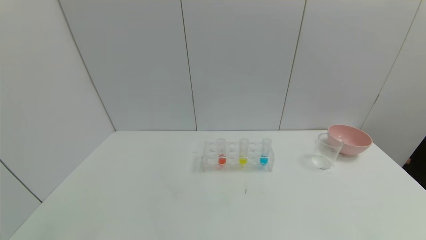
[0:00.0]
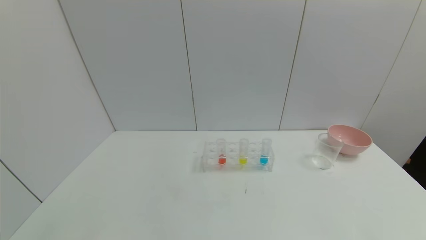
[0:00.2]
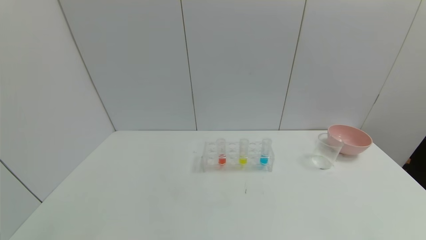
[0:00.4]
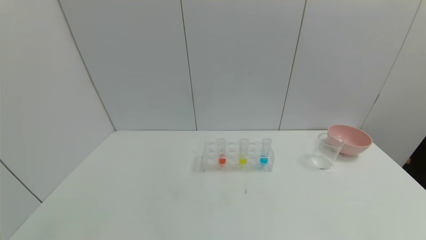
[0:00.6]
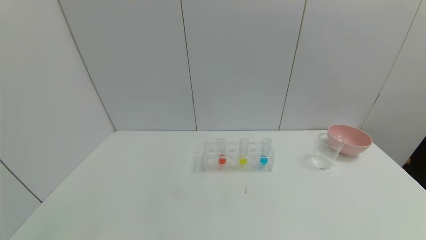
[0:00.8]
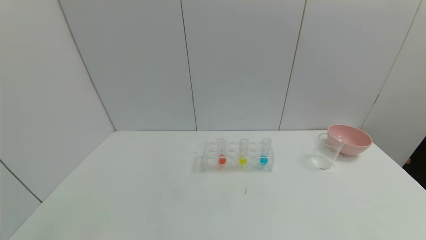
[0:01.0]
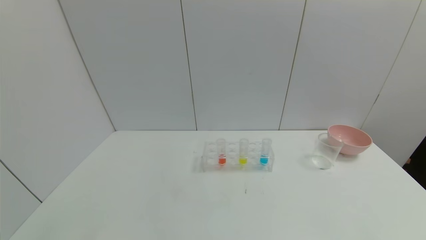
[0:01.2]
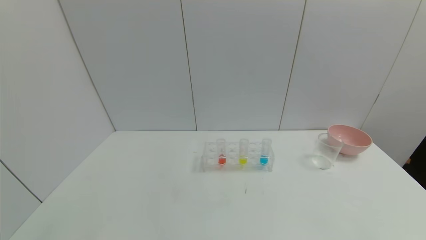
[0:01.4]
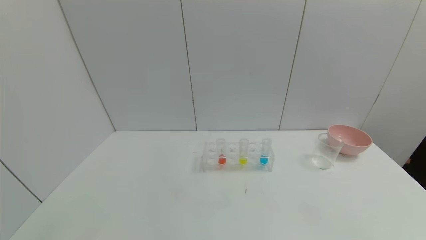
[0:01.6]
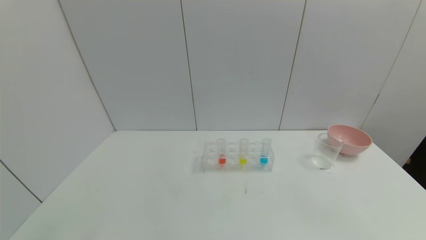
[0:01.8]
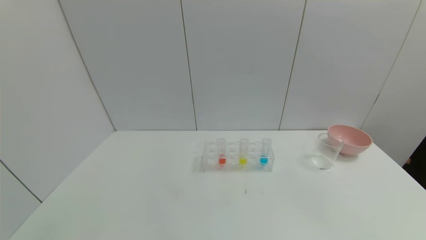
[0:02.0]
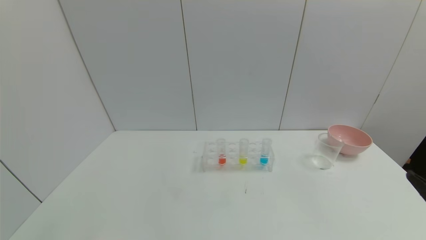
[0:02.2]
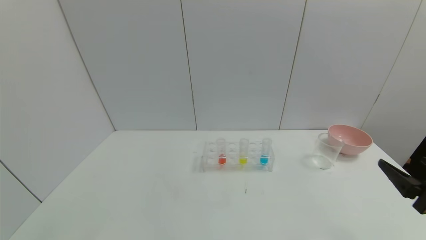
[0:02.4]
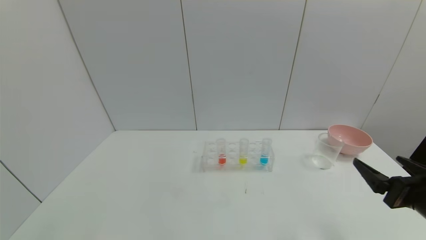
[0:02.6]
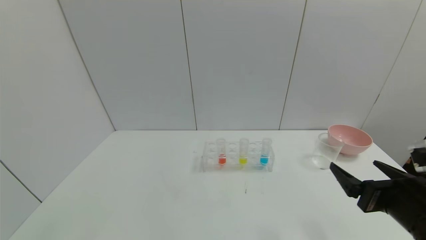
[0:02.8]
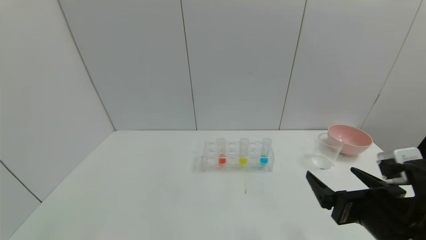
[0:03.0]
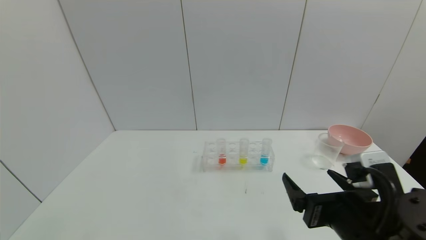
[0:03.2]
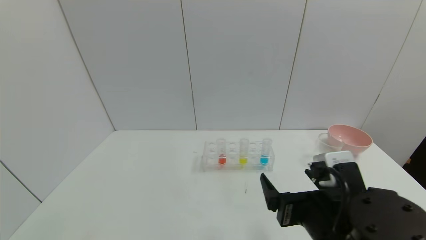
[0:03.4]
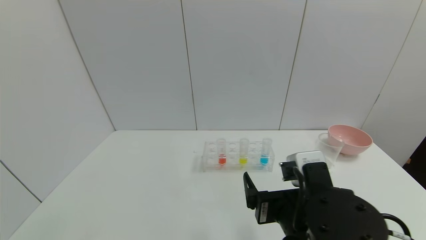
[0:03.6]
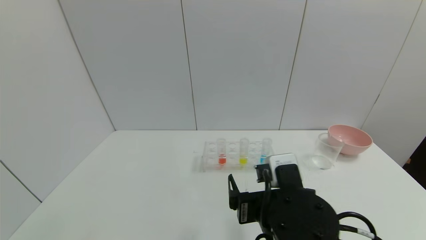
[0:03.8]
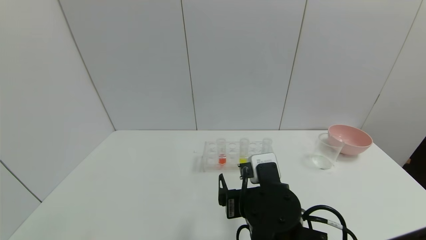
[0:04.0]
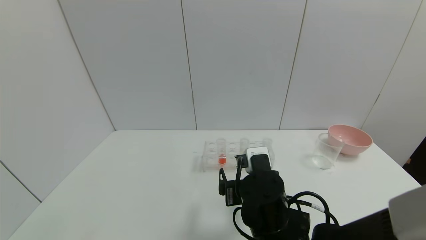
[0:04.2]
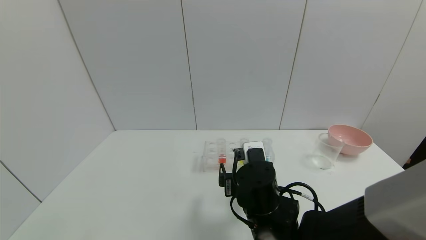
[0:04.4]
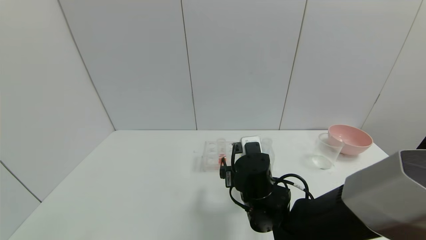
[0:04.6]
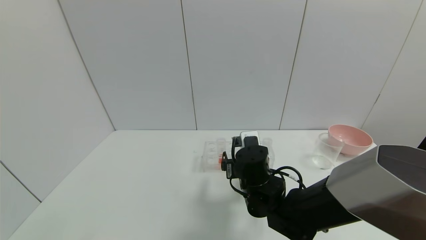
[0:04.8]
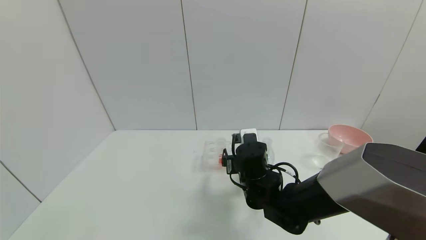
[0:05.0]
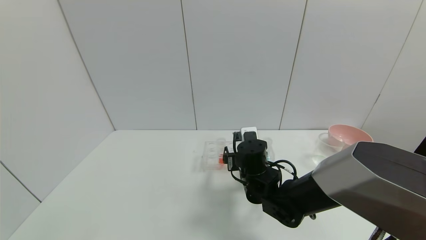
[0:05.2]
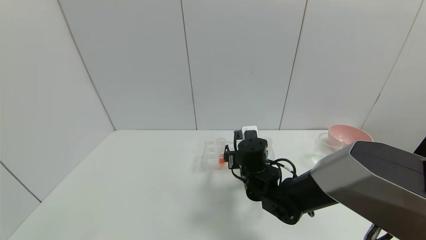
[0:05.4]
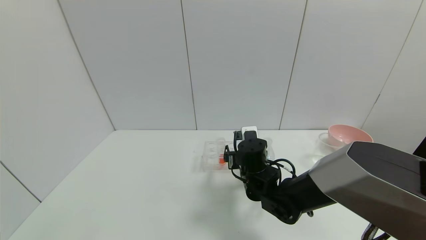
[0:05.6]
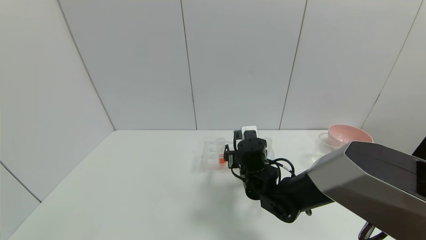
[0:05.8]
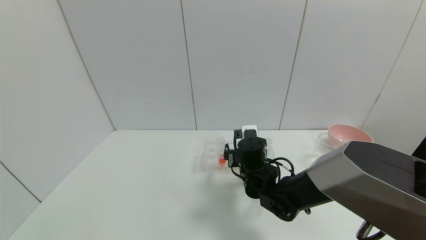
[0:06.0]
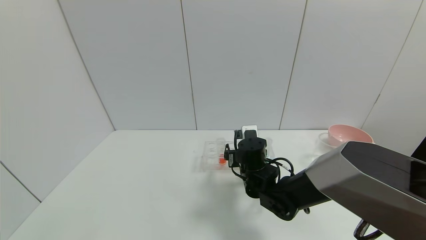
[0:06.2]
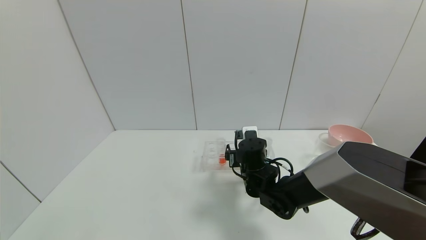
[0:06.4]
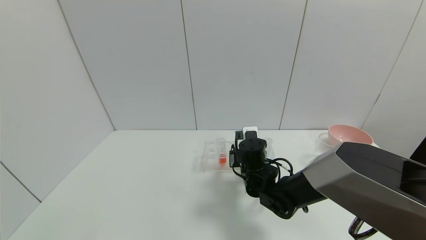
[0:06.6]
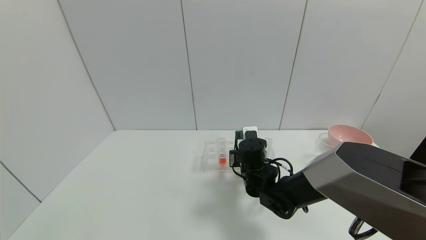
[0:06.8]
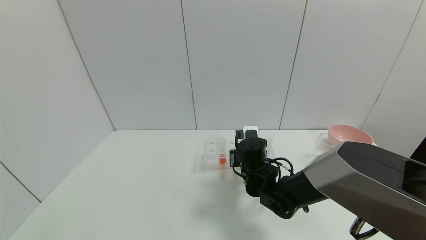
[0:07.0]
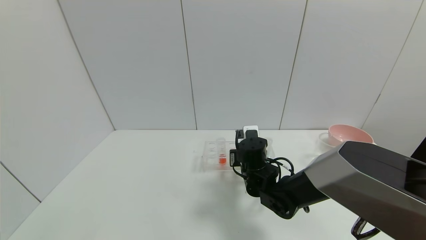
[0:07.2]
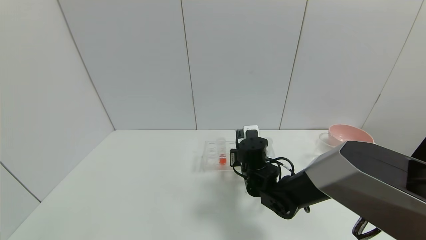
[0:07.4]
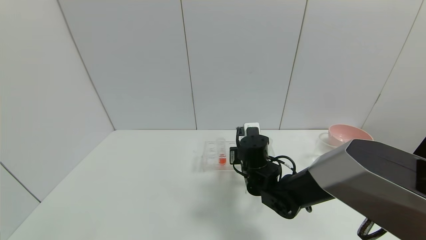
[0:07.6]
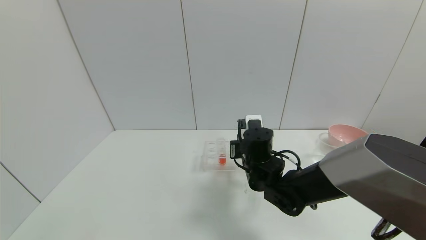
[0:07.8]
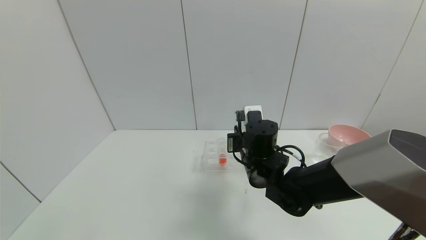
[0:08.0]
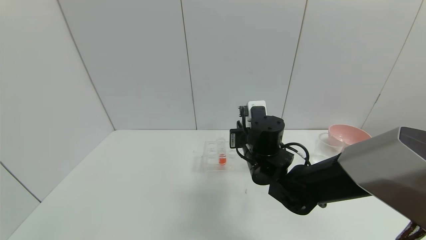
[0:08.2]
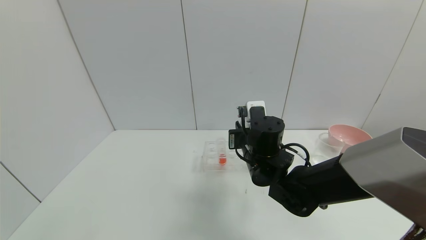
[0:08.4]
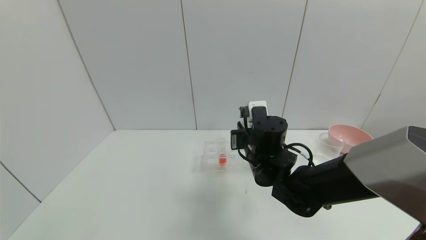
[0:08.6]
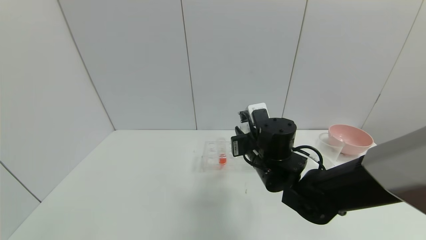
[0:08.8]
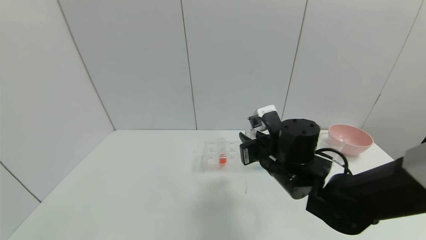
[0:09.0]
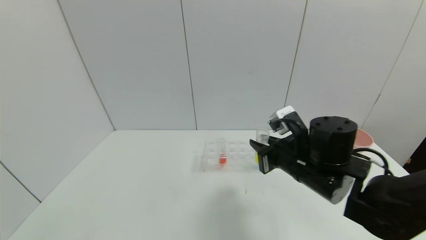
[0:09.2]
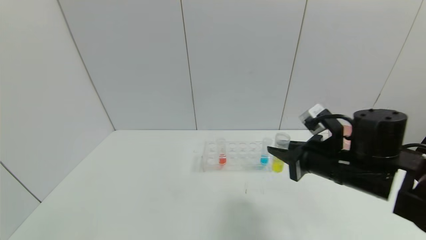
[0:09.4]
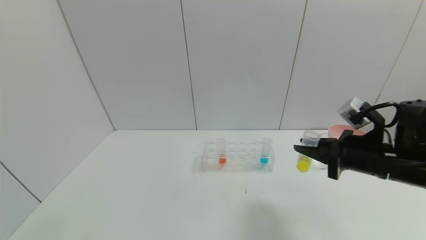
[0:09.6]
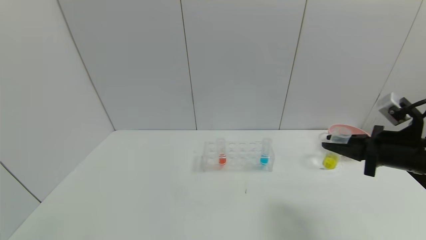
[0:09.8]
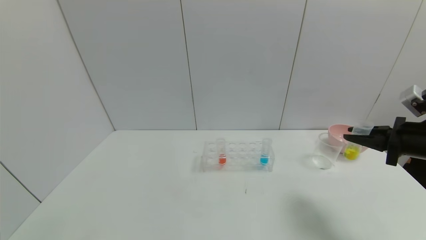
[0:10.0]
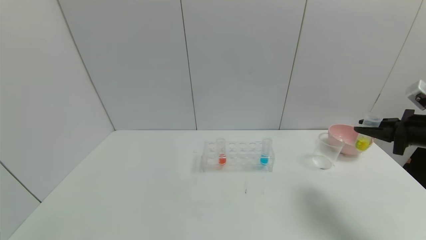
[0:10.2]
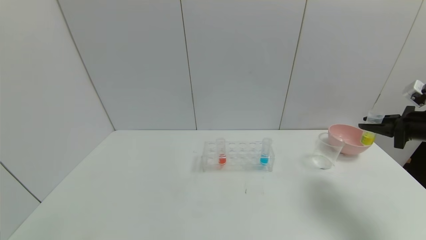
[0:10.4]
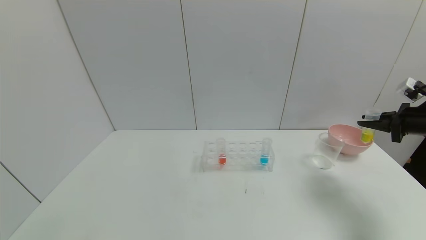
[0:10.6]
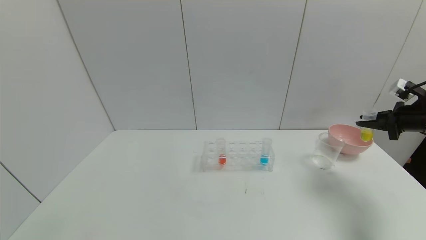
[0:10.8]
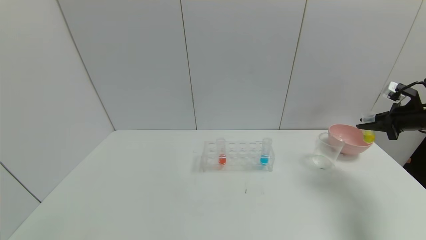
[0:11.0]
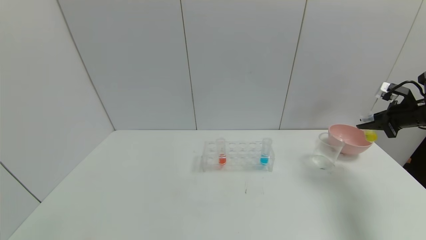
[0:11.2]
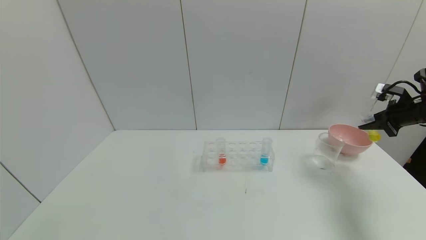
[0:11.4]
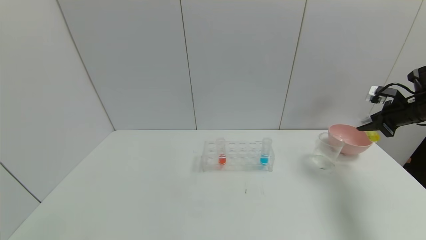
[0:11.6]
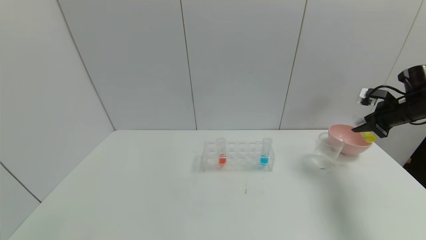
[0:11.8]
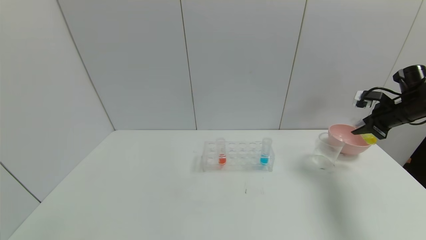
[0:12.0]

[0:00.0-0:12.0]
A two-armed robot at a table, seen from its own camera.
Task of the whole recording: pick up the test tube with yellow pigment and the test tube with blue pigment by grippers and pour them into the beaker.
Step, 0:00.0 to 0:07.0: Grasp the yellow reagent with the right gripper.
0:01.6 to 0:03.0: The right gripper travels forward and to the left by about 20 cm.
0:03.0 to 0:04.4: The right gripper goes roughly 20 cm to the left and forward.
0:04.4 to 0:06.0: The right gripper heads forward, covering about 10 cm.
0:06.0 to 0:07.6: The right gripper closes up.
0:07.6 to 0:09.0: The right gripper is displaced upward and backward by about 10 cm.
0:09.0 to 0:10.4: The right gripper shifts some 35 cm to the right.
0:10.4 to 0:12.0: The right gripper shifts about 10 cm forward.

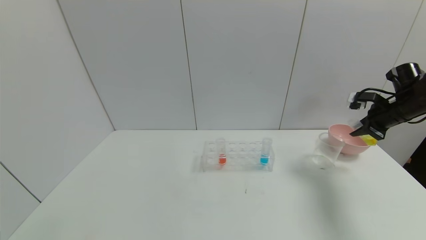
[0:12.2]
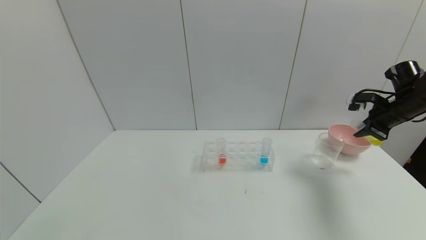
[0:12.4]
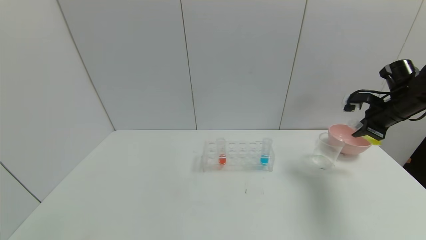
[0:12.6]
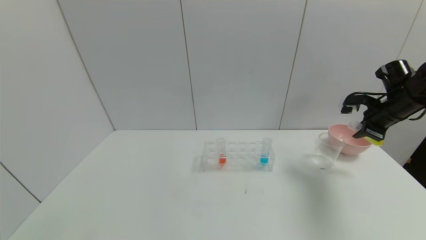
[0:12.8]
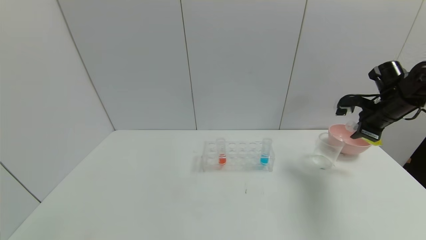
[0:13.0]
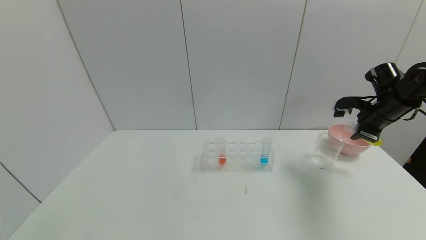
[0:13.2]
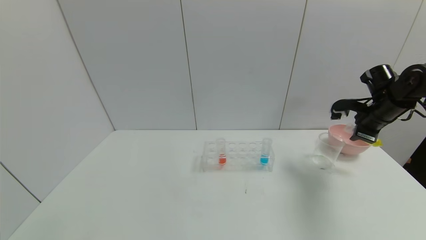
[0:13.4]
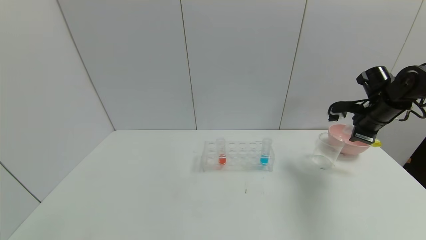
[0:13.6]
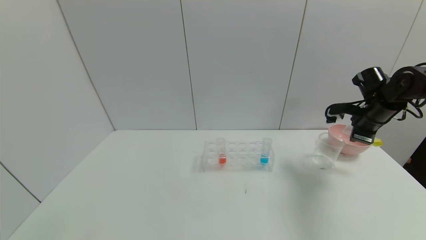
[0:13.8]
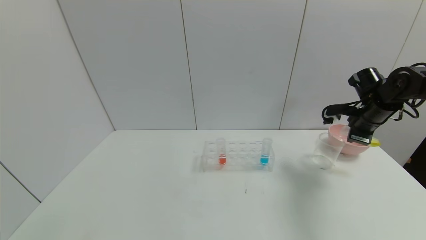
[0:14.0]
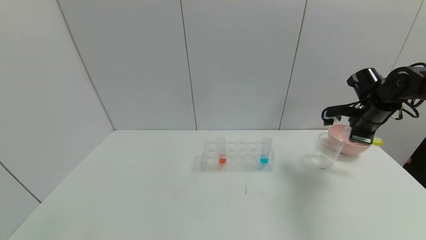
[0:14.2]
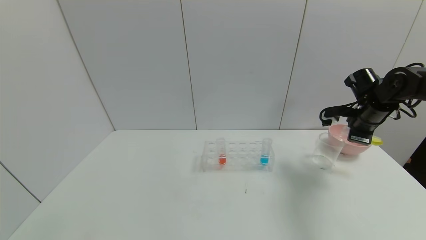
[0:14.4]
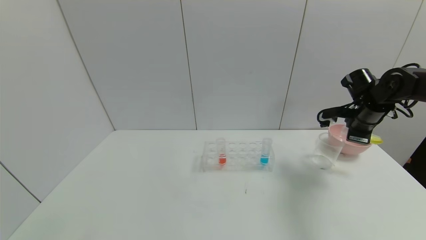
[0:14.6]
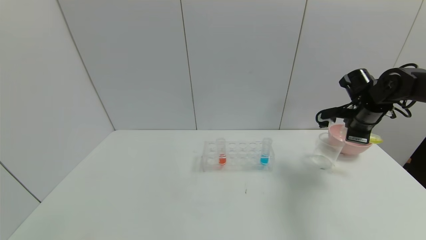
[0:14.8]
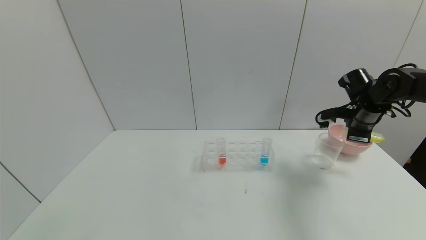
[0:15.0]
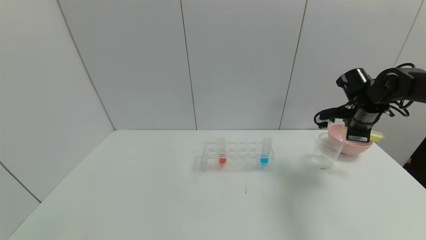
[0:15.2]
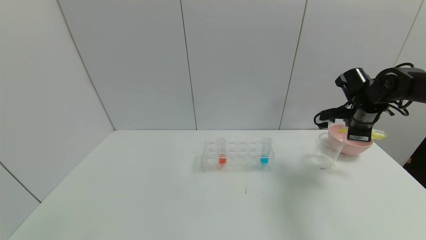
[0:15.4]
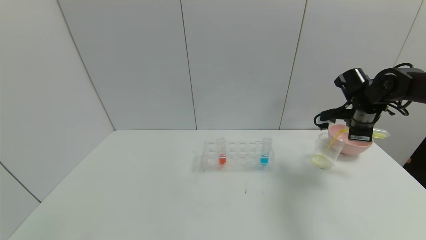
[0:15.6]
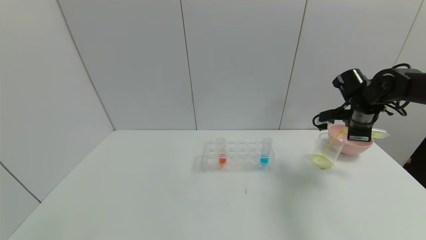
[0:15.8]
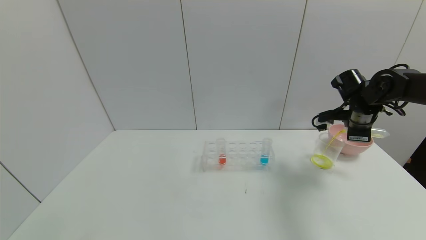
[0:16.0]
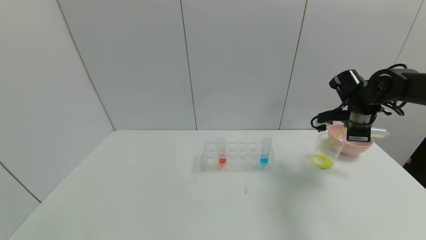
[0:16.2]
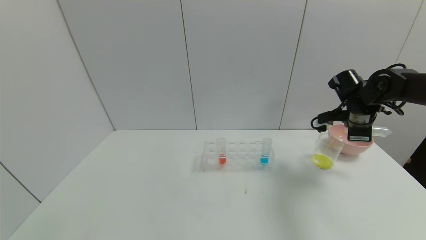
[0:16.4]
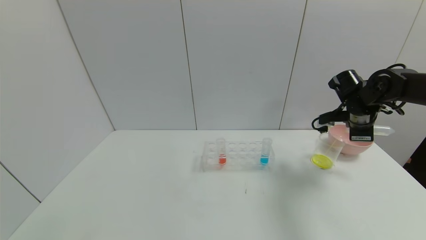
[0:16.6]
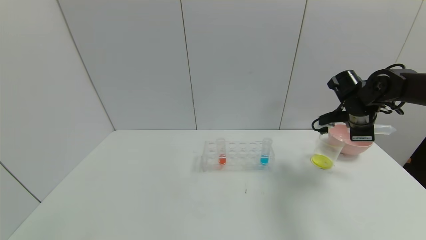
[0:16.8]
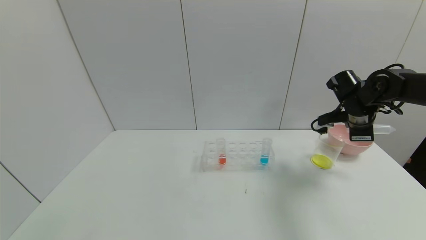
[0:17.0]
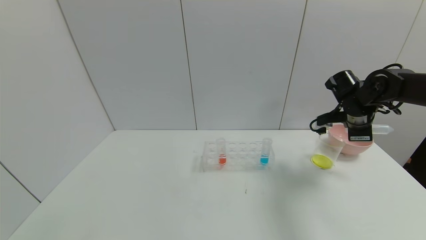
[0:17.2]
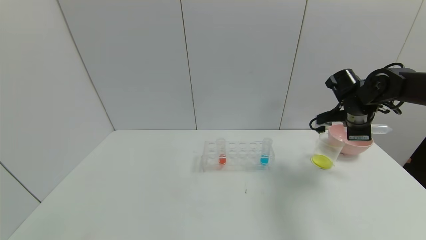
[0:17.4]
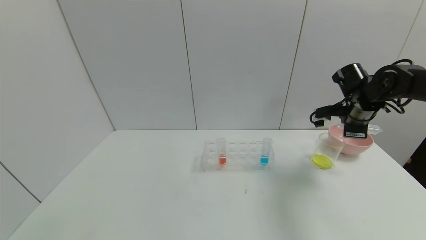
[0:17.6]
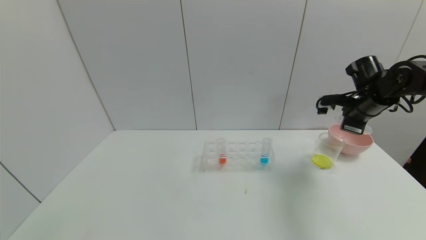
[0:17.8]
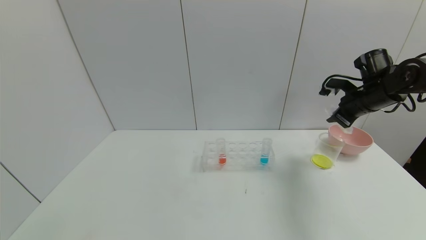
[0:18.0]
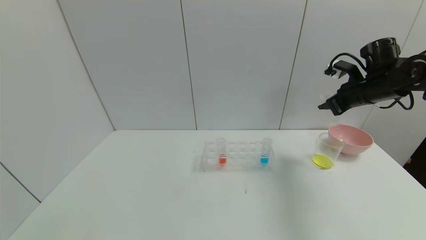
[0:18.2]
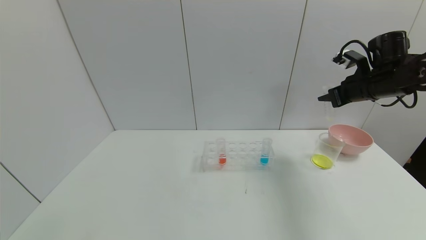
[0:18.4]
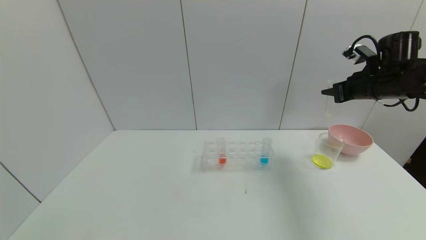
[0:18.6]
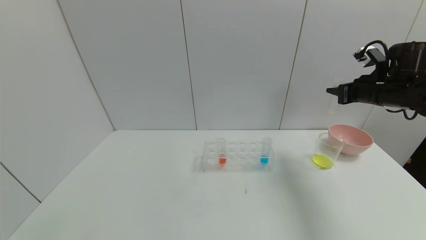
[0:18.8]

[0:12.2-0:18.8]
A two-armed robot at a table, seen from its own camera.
Task of the whole recording: pick up the test tube with yellow pigment and the test tube with blue pigment by grippers and pour them into the beaker.
Step, 0:12.2 to 0:16.8: Pour the yellow reagent into the graduated cylinder with the right gripper.
0:12.2 to 0:13.8: The right gripper moves to the left, about 5 cm.
0:13.8 to 0:15.4: The grippers move only a little.
0:15.4 to 0:17.2: The grippers move only a little.
0:17.2 to 0:18.8: The right gripper shifts about 5 cm upward.
